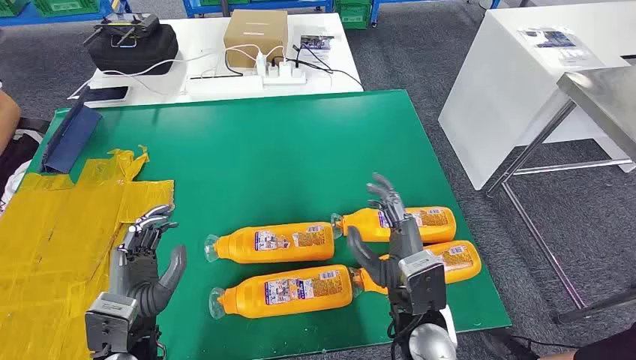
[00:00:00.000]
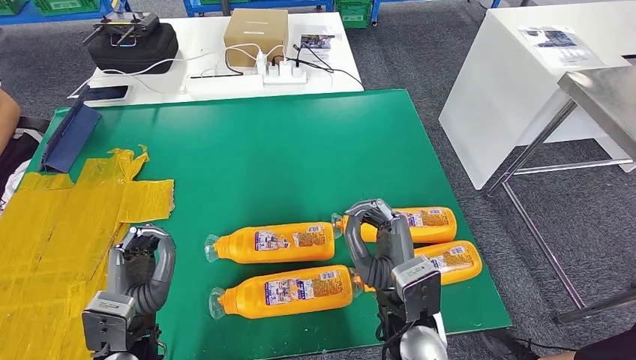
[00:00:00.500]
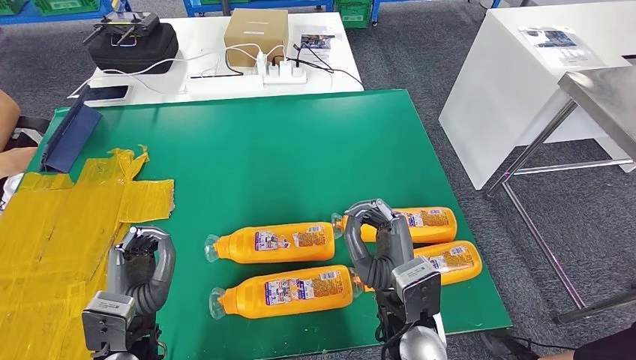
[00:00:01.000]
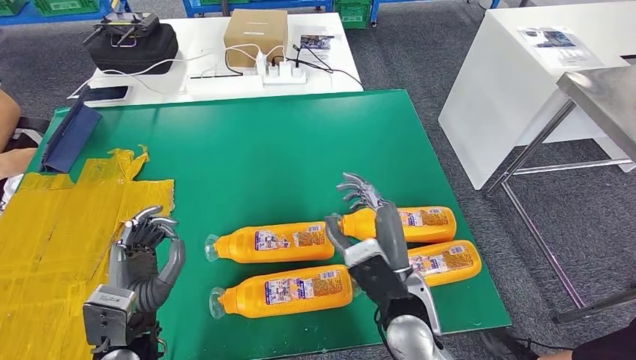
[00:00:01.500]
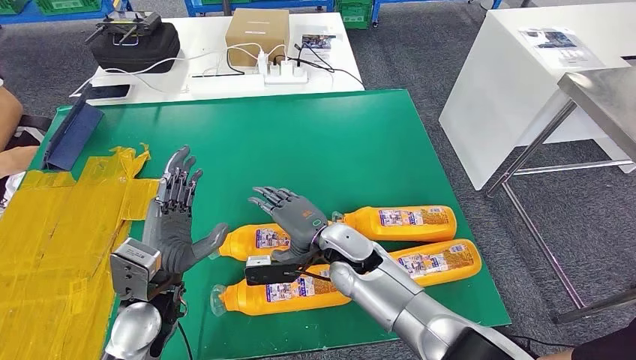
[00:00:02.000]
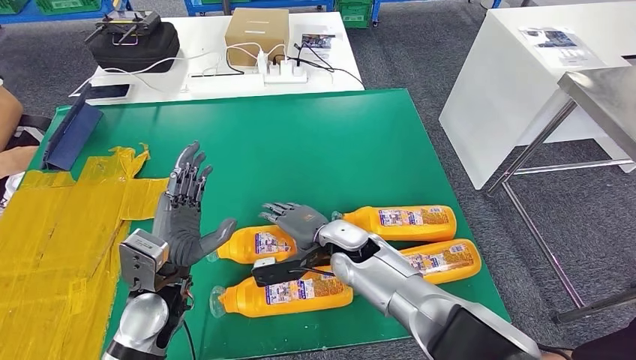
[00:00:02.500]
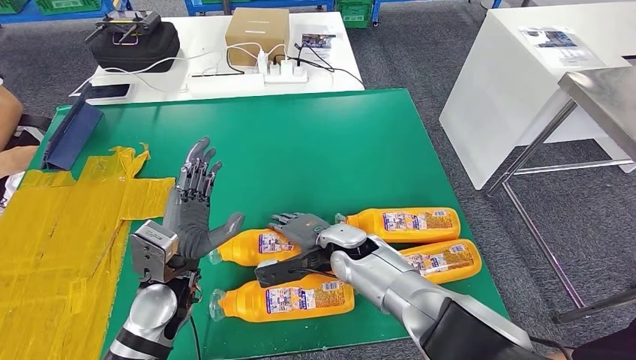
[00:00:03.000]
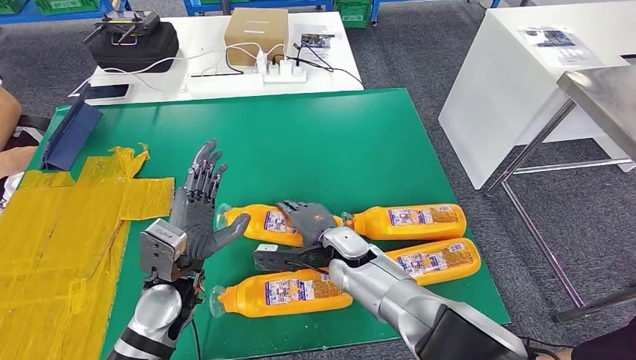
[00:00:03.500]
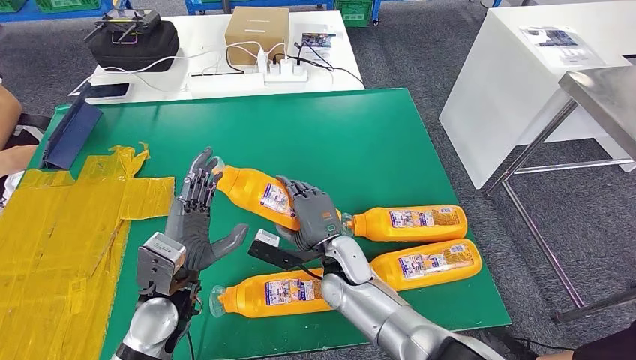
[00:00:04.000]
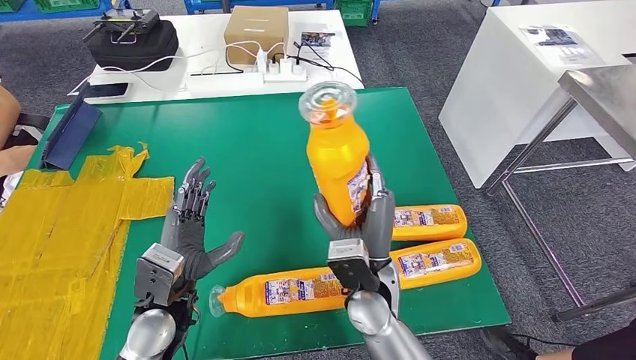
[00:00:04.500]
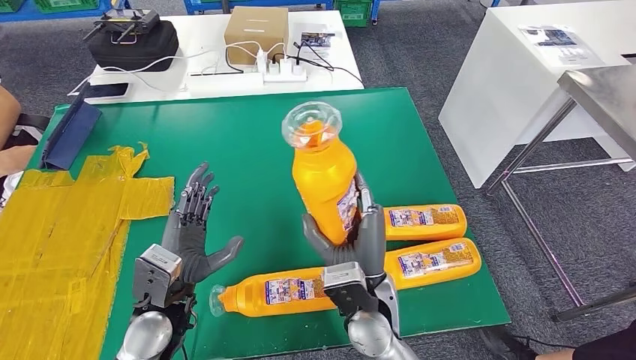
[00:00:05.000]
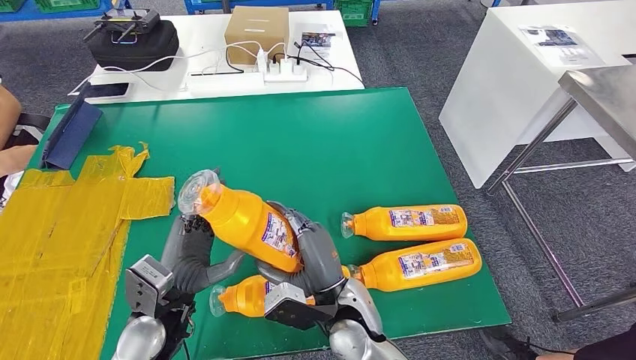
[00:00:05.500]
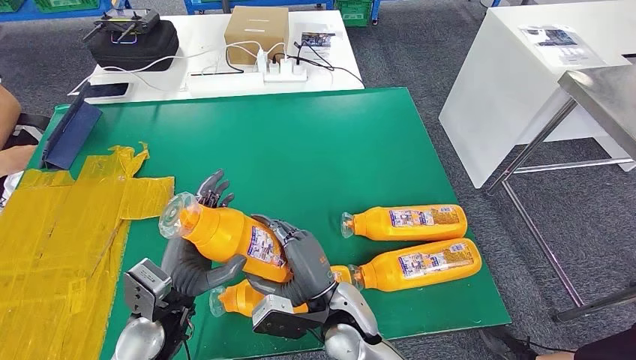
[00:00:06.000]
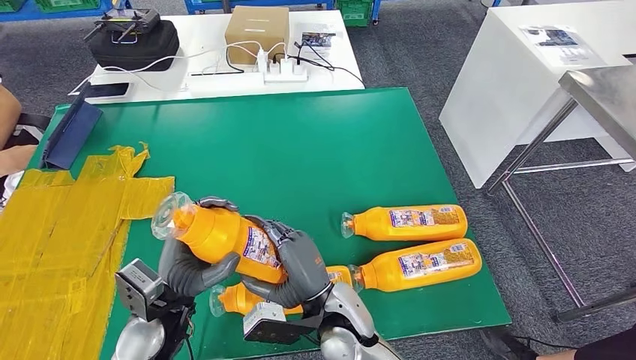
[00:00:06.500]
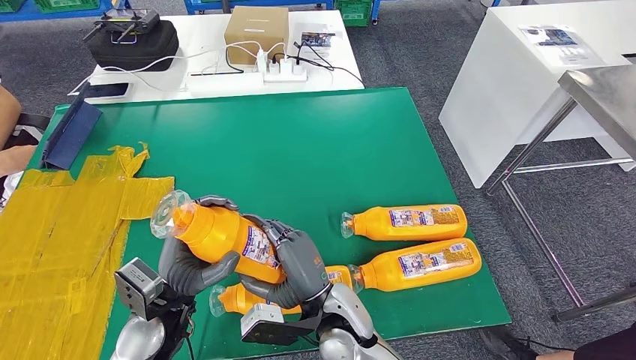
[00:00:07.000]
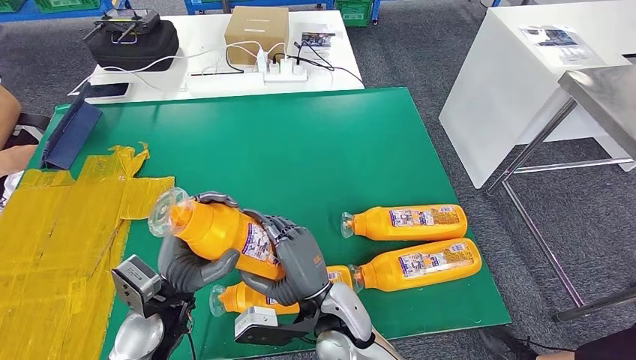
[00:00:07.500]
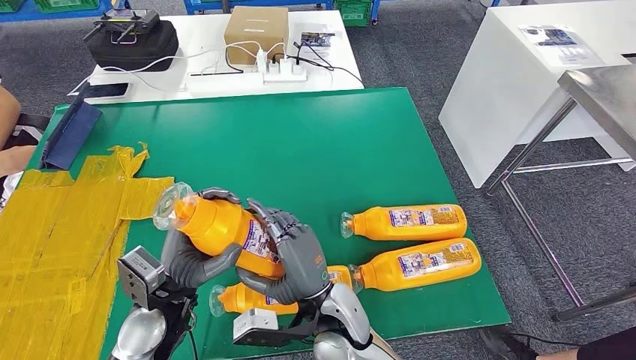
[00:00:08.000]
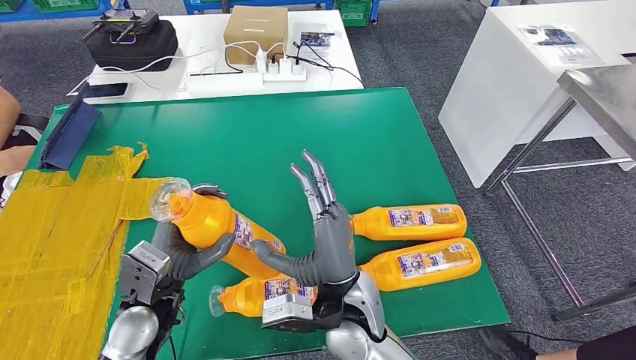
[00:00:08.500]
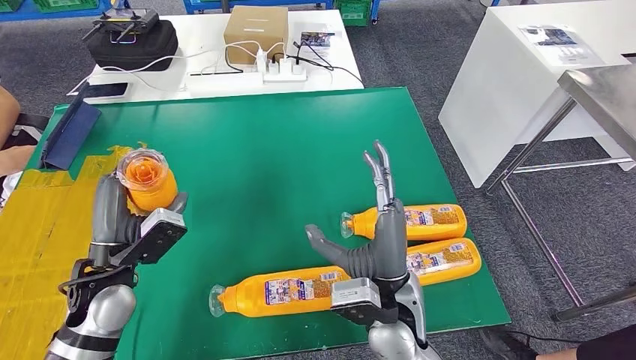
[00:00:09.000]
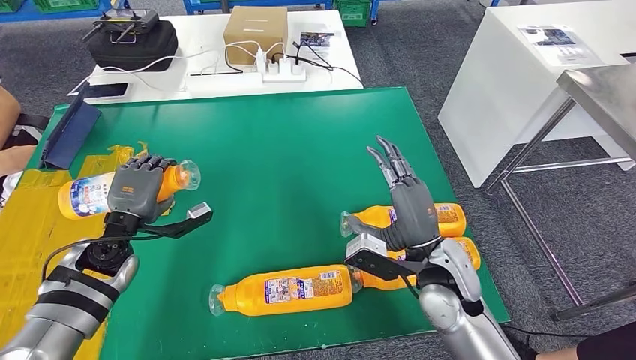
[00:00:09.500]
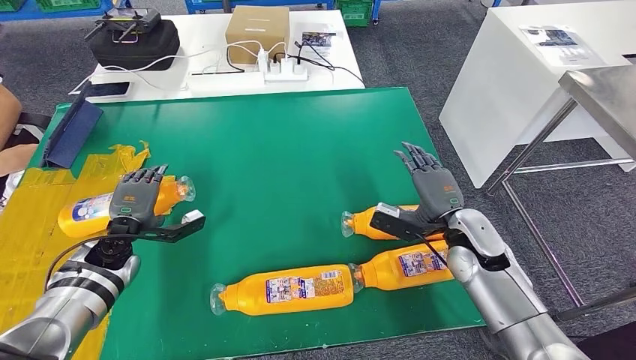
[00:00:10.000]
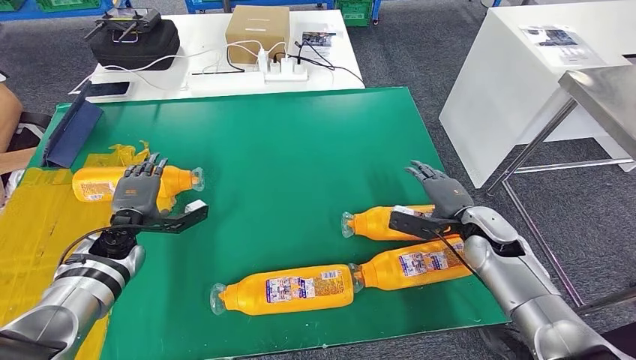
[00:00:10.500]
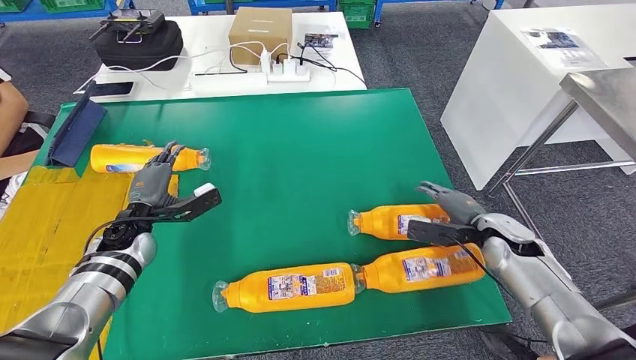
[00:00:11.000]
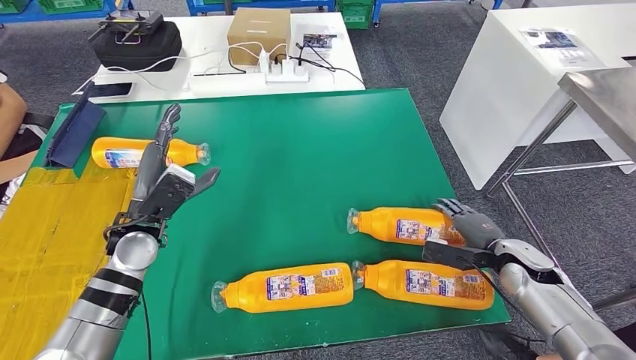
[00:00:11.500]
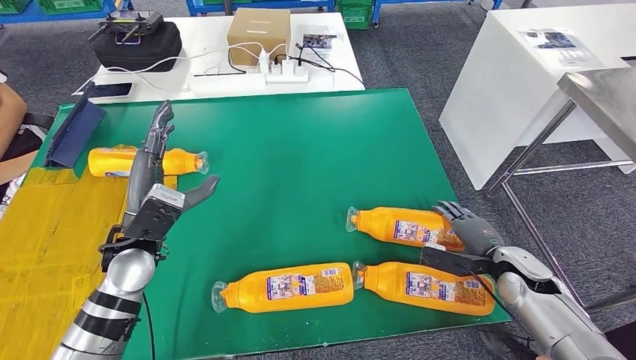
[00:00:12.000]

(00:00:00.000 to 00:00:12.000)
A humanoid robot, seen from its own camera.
Step, 00:00:00.000 - 00:00:05.500: Take the bottle from the table.
Step, 00:00:06.000 - 00:00:10.500: Flip the bottle to face forward.
00:00:04.000 - 00:00:06.000: The right hand moves backward, about 10 cm.
00:00:06.000 - 00:00:08.000: The hands stay close to where they were, moving slightly.

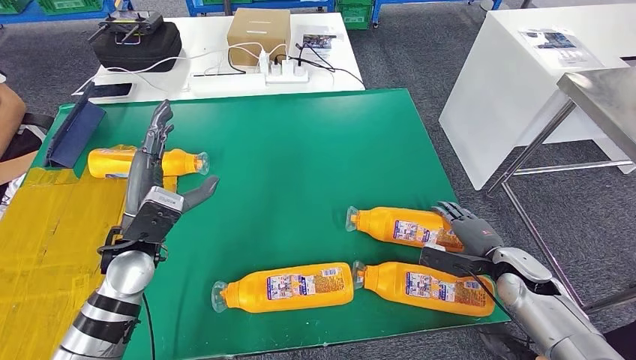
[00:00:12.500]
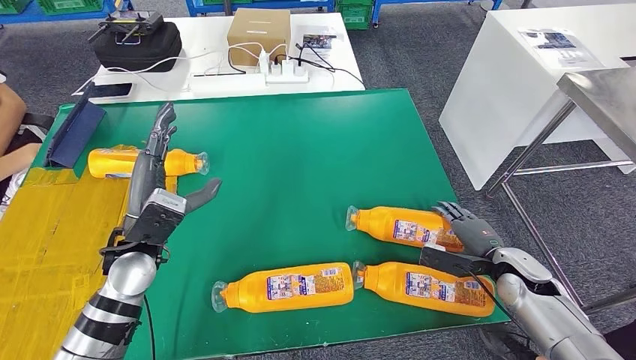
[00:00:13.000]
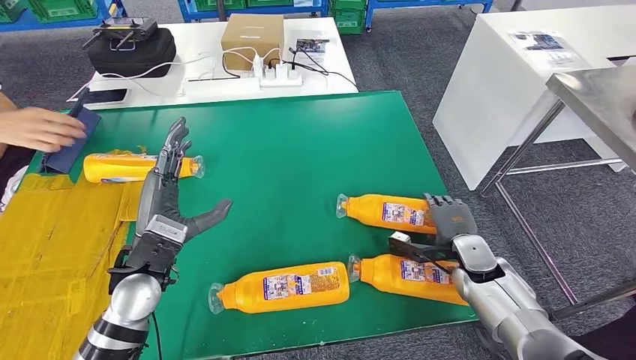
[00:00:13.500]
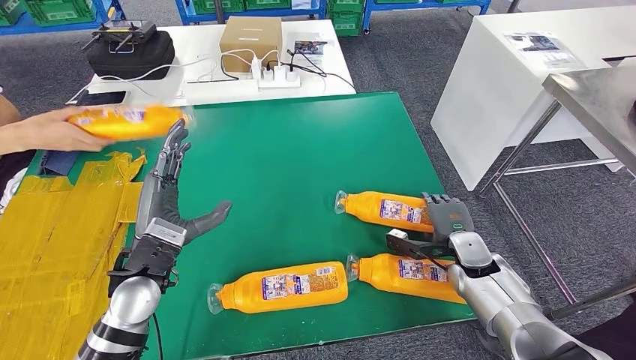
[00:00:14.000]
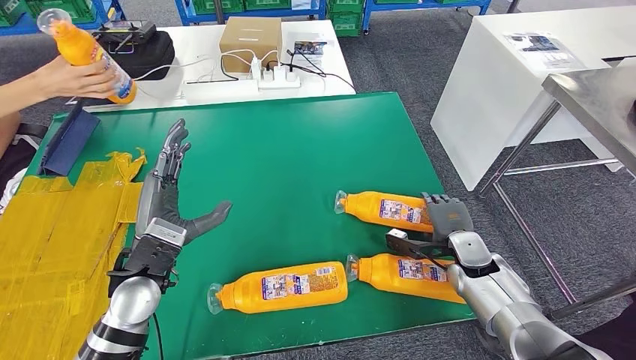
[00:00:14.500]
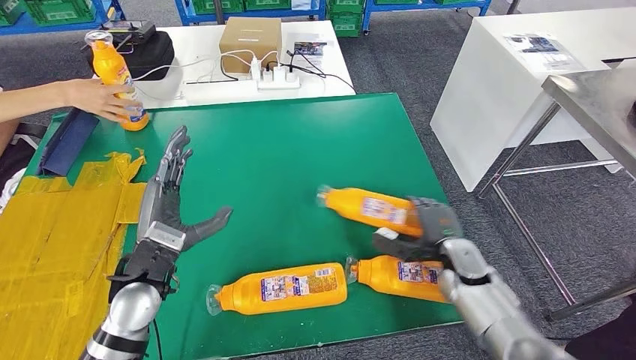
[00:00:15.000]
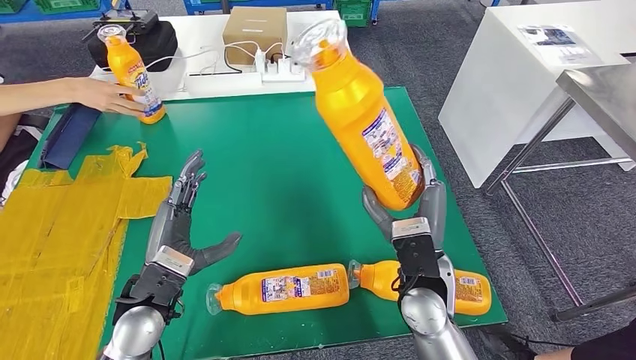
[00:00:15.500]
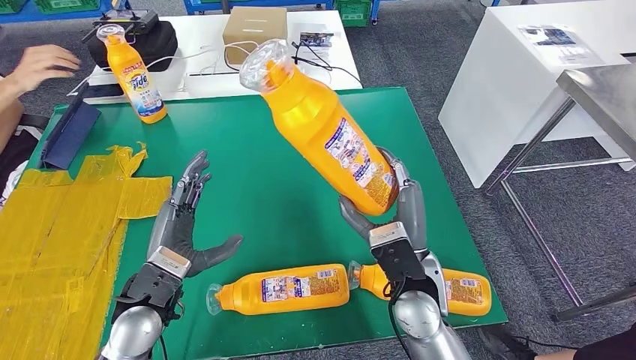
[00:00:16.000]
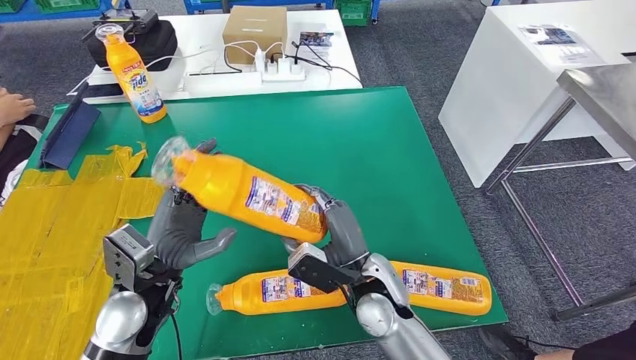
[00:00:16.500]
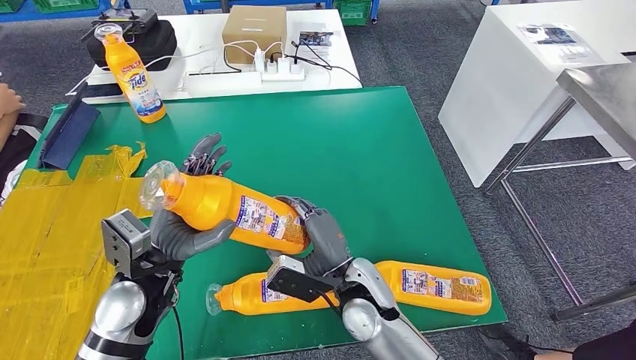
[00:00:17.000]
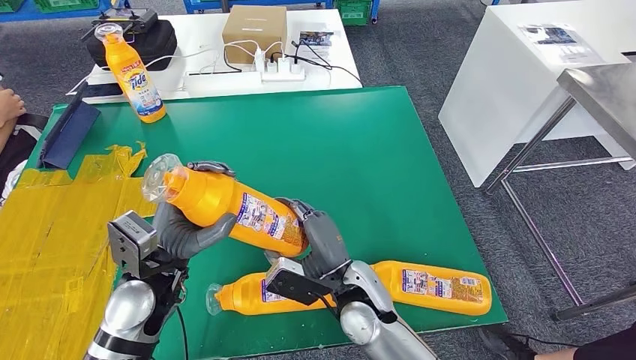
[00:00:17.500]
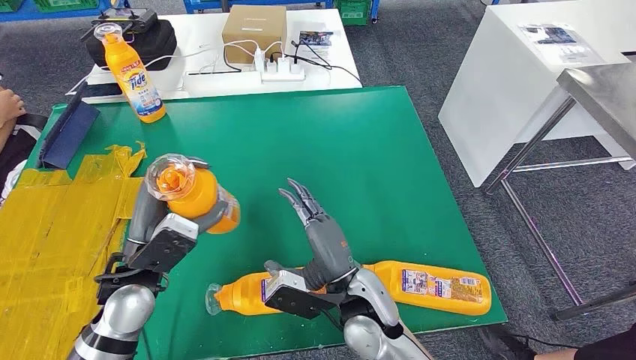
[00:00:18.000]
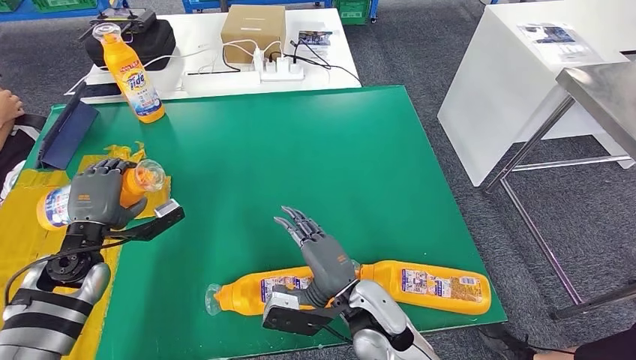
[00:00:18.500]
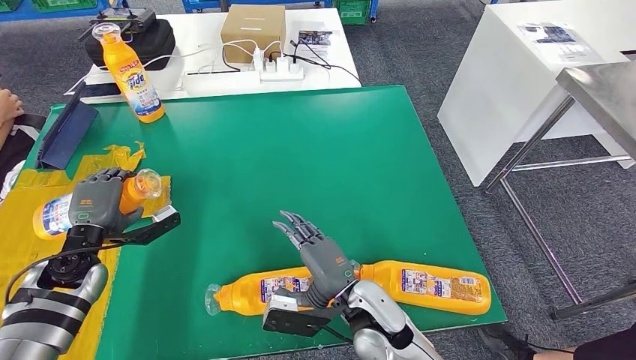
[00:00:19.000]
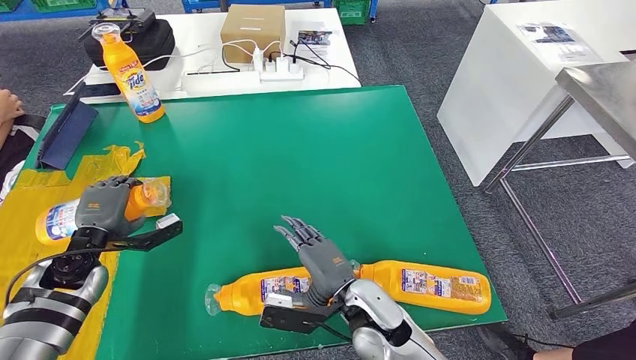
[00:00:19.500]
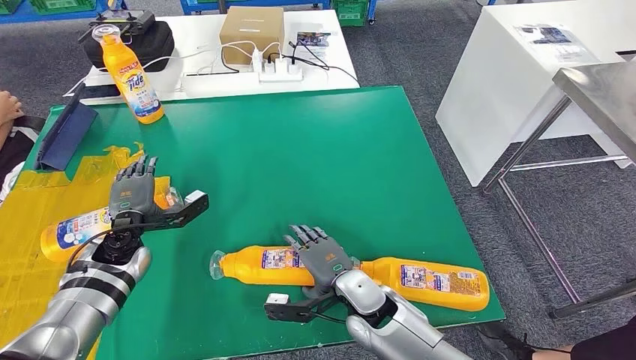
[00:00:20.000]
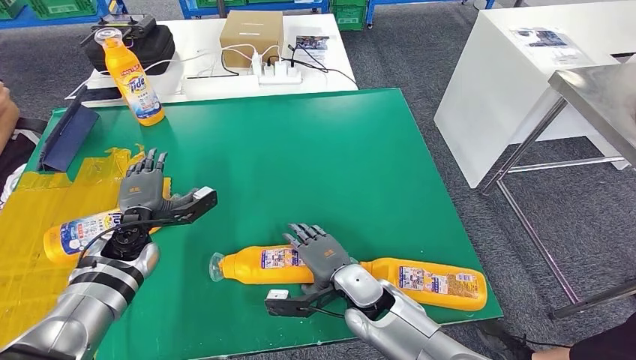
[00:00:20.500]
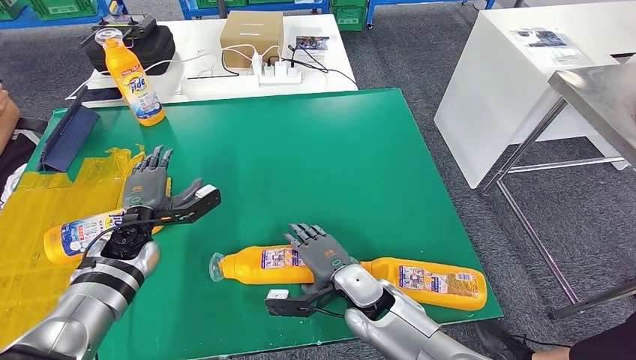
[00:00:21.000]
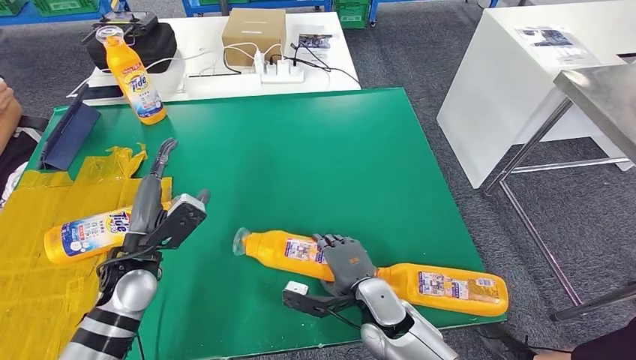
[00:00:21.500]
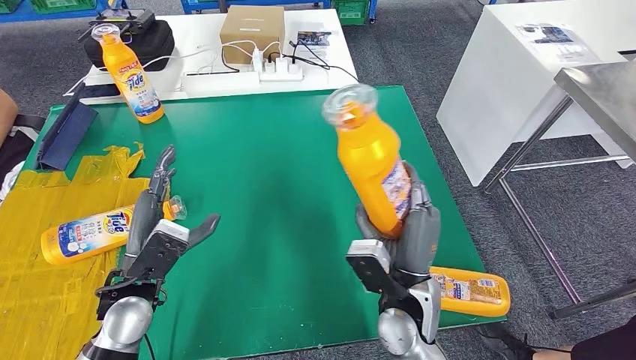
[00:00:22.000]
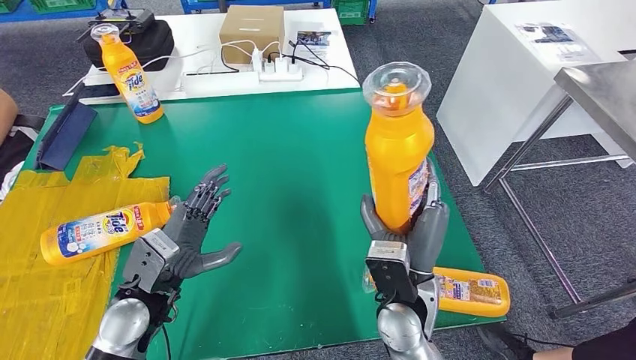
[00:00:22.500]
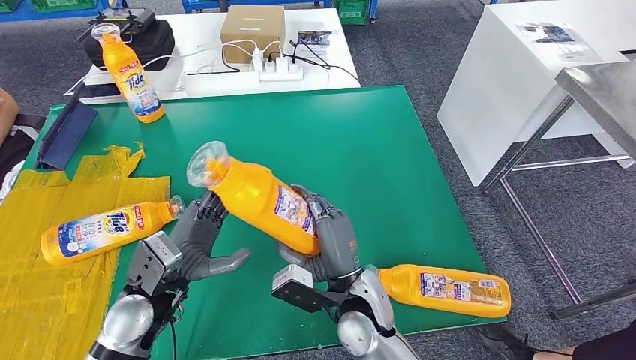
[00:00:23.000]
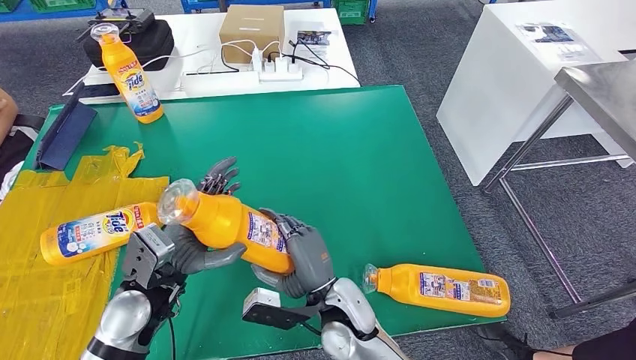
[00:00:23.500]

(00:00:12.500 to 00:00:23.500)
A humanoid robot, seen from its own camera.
Step, 00:00:12.500 - 00:00:17.000: Pick up the bottle from the table.
Step, 00:00:18.000 - 00:00:19.500: Flip the bottle to face forward.
Step, 00:00:20.000 - 00:00:23.000: Pick up the bottle from the table.
